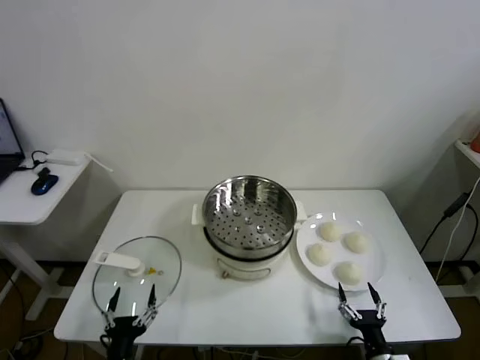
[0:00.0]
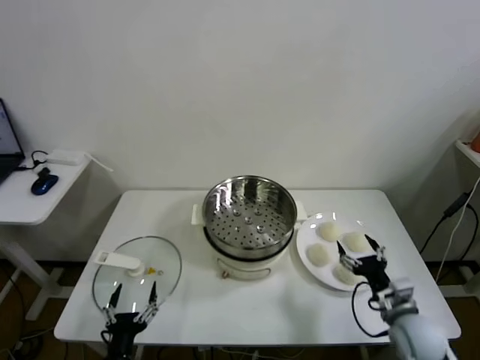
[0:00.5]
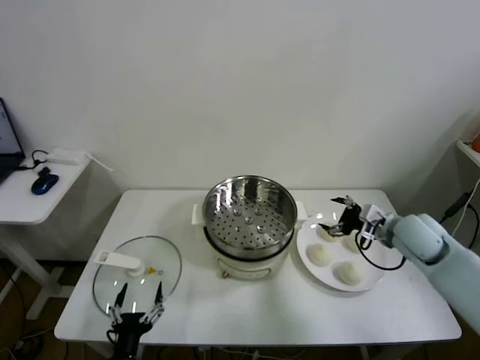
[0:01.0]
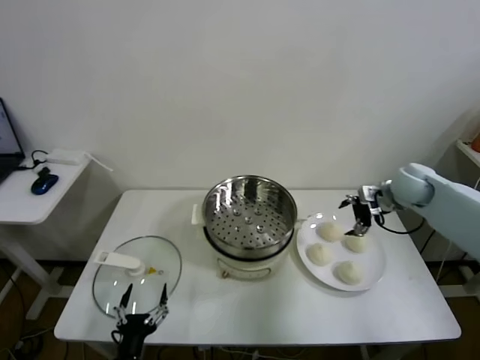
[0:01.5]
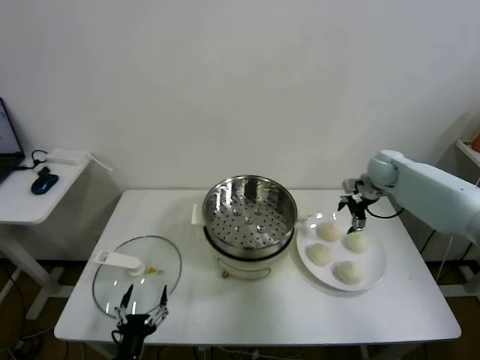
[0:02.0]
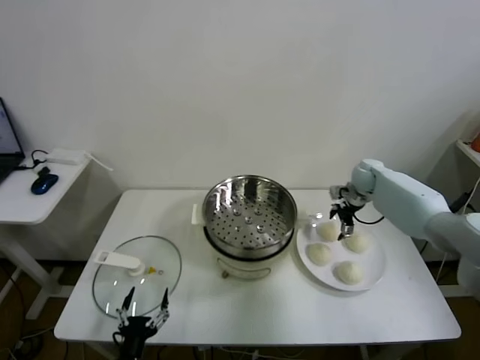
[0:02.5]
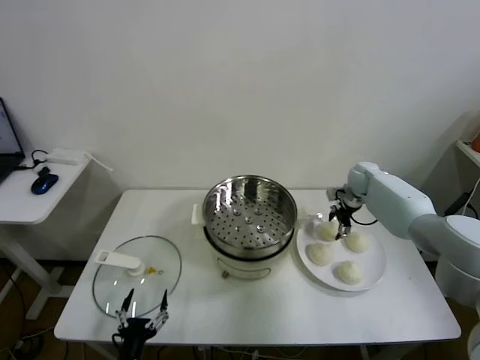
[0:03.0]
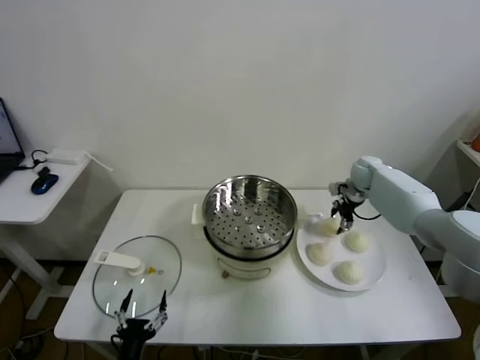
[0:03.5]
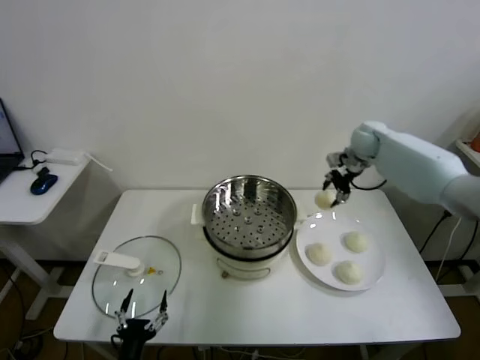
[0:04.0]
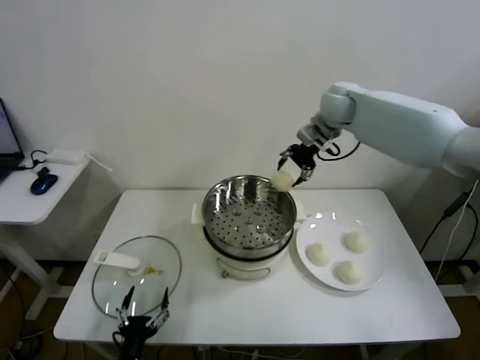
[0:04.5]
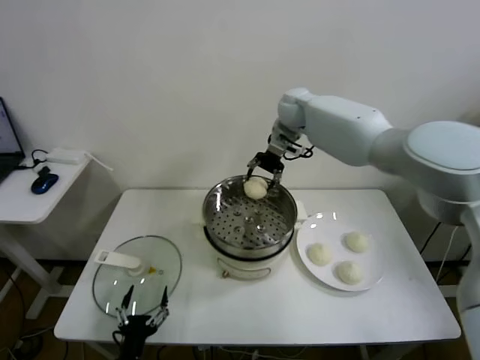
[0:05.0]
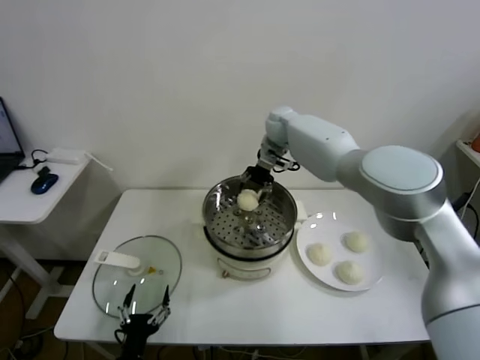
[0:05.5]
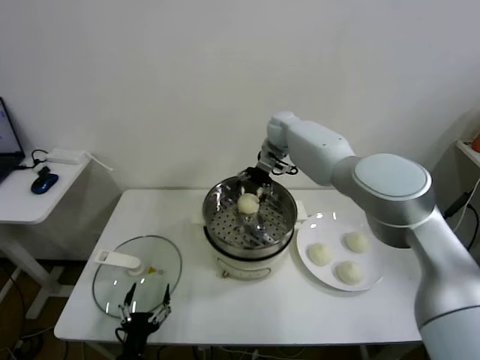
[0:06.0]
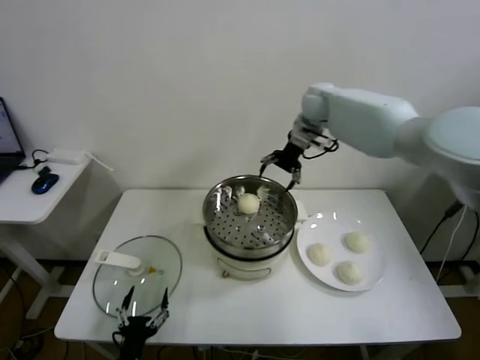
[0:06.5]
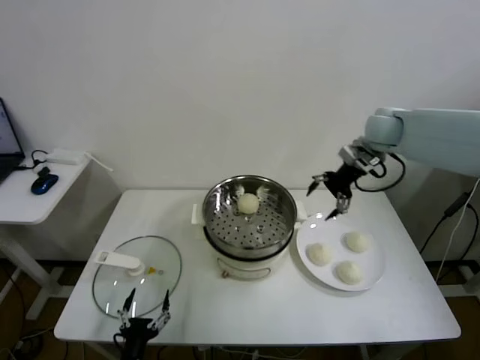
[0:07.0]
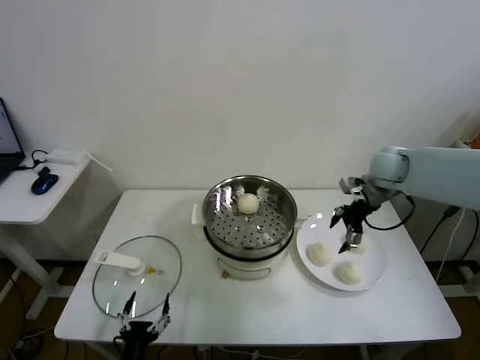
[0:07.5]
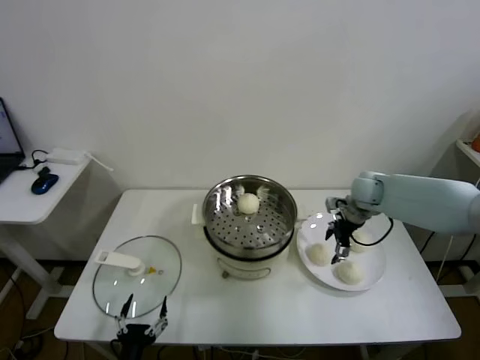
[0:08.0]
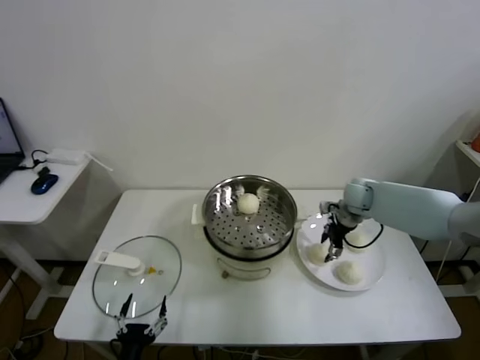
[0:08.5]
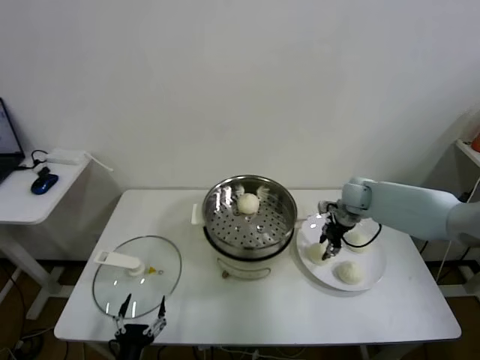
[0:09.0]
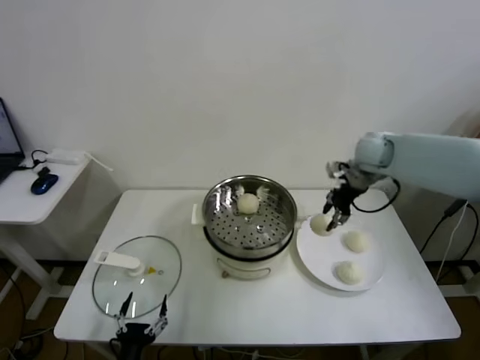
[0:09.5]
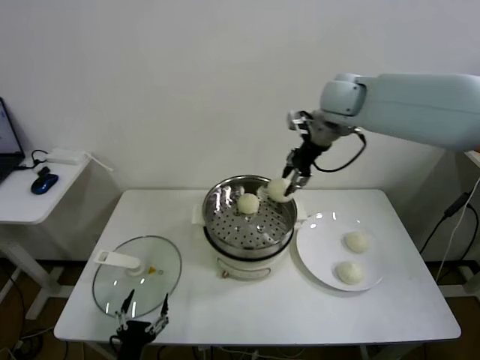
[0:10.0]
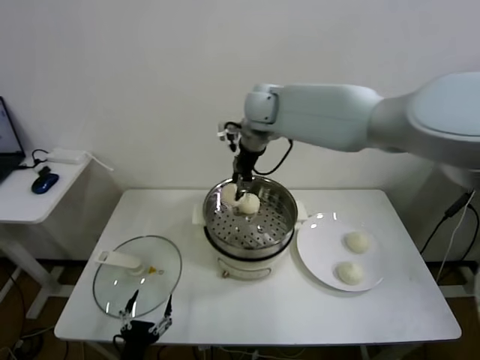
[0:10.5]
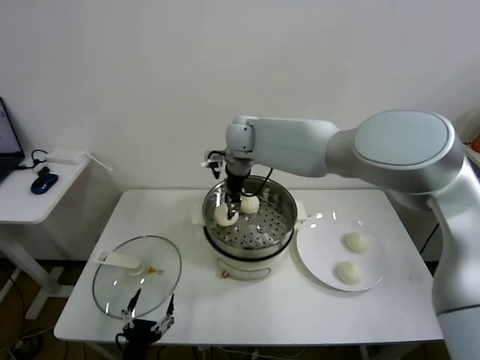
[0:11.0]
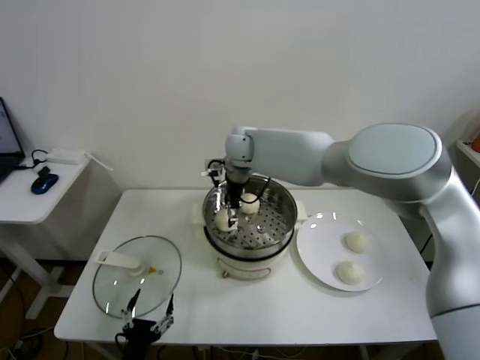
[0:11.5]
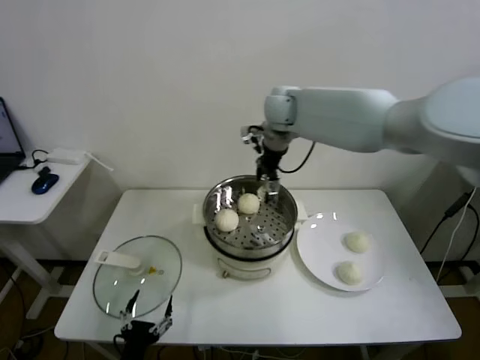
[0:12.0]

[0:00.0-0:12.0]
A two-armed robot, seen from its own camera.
Task of the whole recording: take steamed baozi put them in steamer.
Step, 0:00.0 to 0:03.0: Grasp the baozi in the plate with right gripper.
Step, 0:03.5 to 0:06.0: Place the baozi on the steamer with right gripper.
Step, 0:06.5 to 0:08.5: Grasp the baozi in the plate with right gripper.
Step, 0:09.0 to 0:11.5: Place the baozi on the steamer with right gripper.
0:02.0 to 0:04.0: The right gripper moves upward and to the left, roughly 10 cm, and closes its fingers.
0:04.0 to 0:06.0: The right gripper goes roughly 20 cm to the left, and opens up.
0:06.0 to 0:08.0: The right gripper goes about 25 cm to the right, backward and downward.
0:08.0 to 0:10.0: The right gripper travels upward and to the left by some 30 cm, and closes its fingers.
0:10.0 to 0:12.0: The right gripper goes about 10 cm to the left, and opens its fingers.

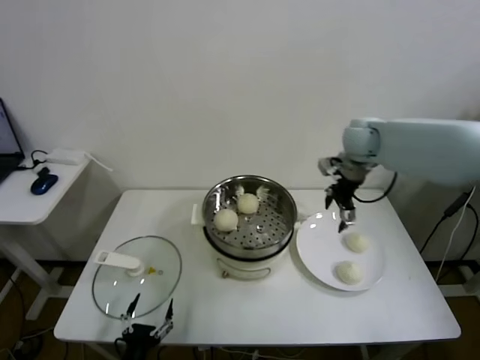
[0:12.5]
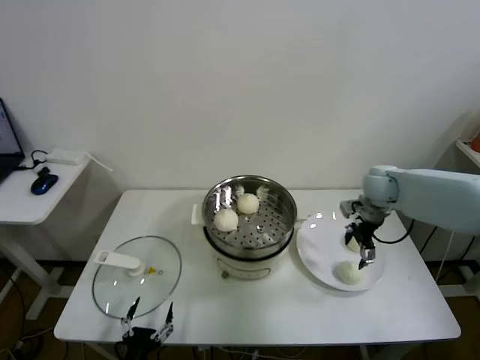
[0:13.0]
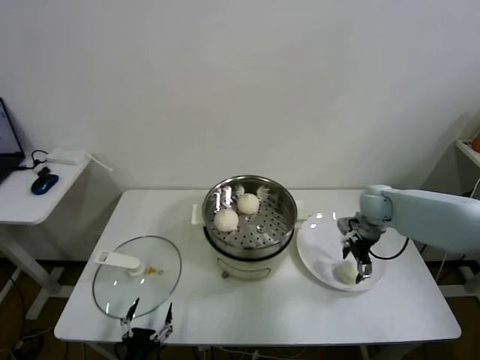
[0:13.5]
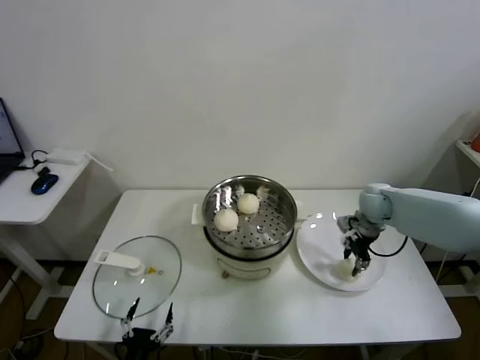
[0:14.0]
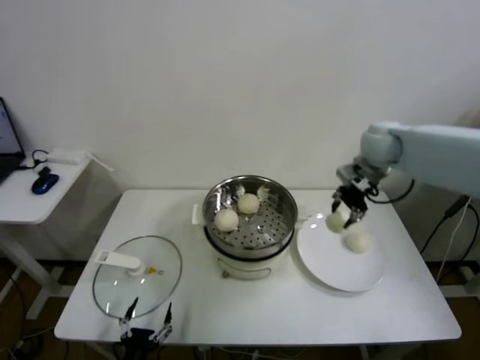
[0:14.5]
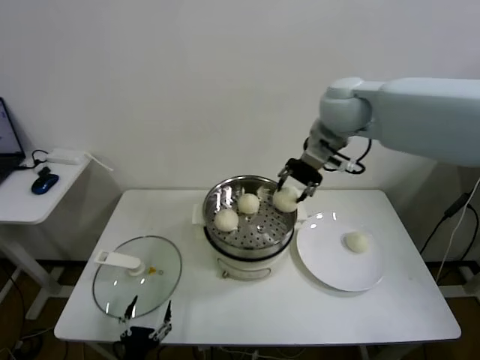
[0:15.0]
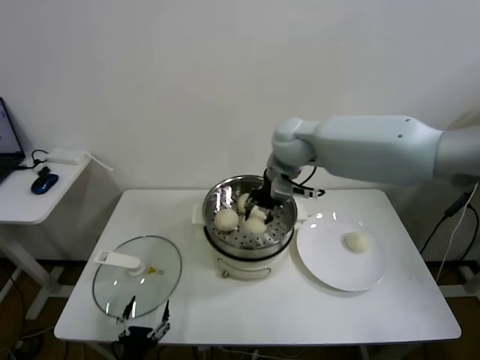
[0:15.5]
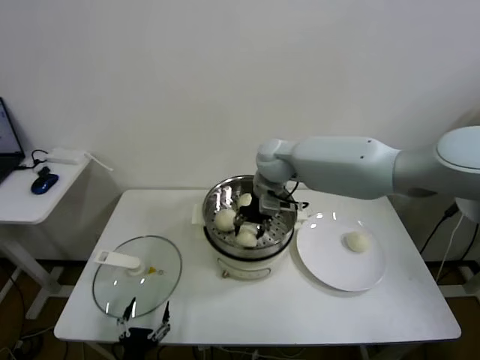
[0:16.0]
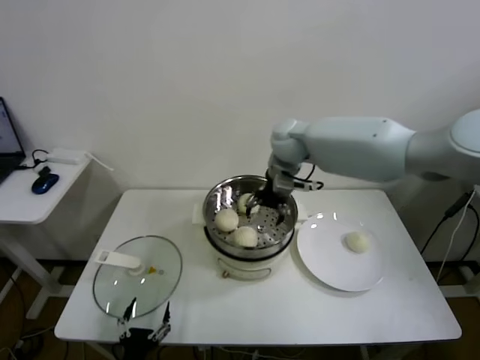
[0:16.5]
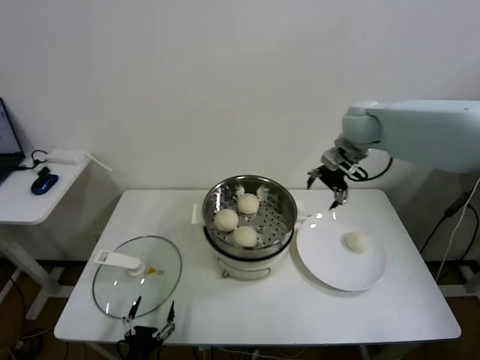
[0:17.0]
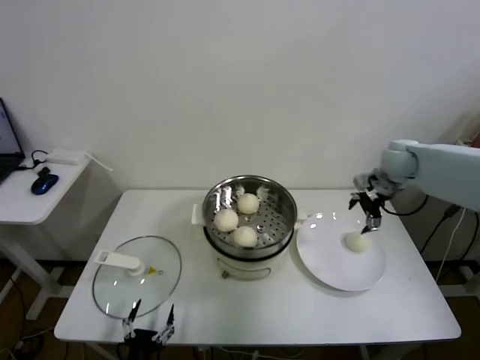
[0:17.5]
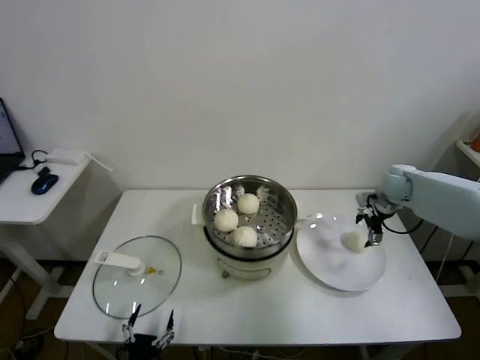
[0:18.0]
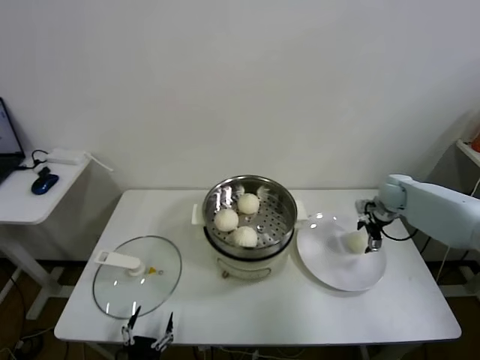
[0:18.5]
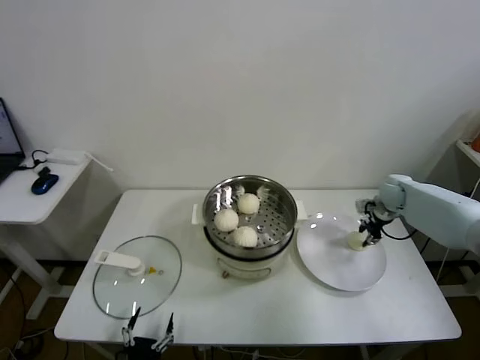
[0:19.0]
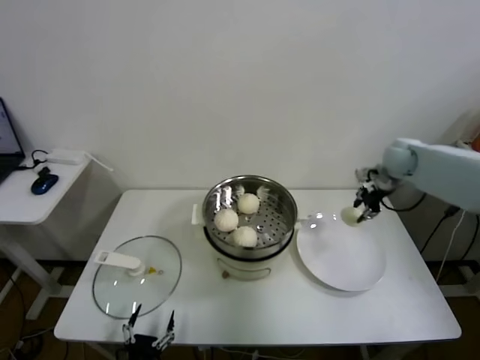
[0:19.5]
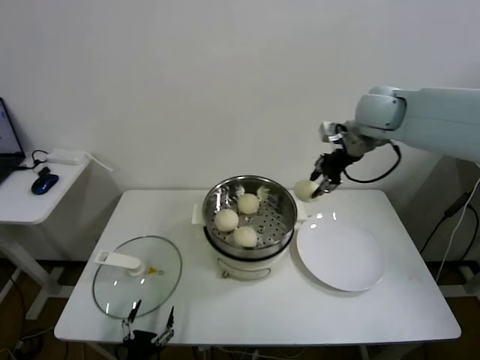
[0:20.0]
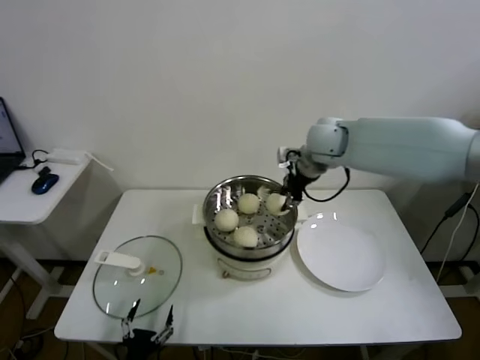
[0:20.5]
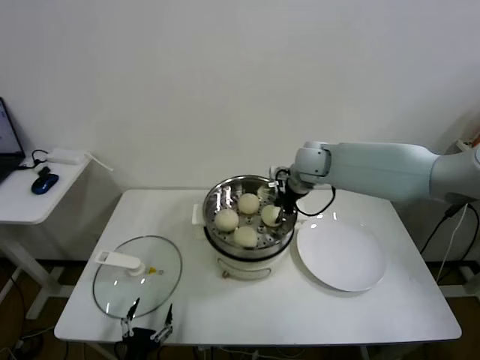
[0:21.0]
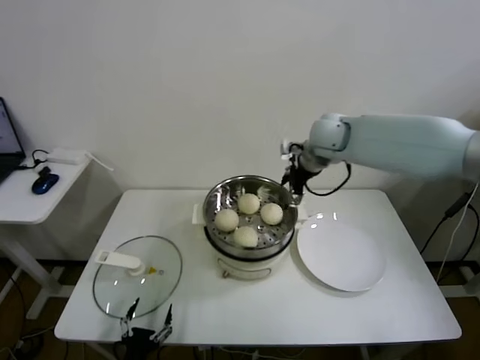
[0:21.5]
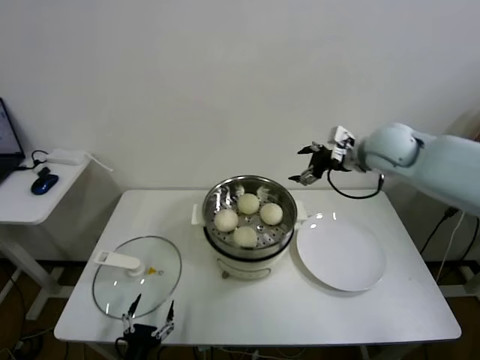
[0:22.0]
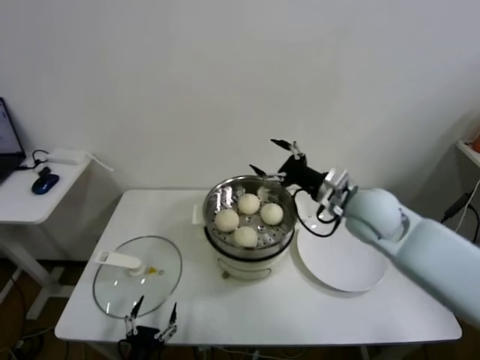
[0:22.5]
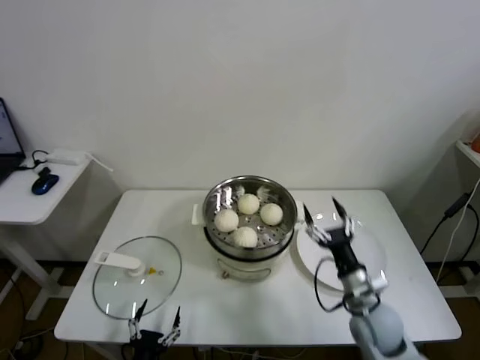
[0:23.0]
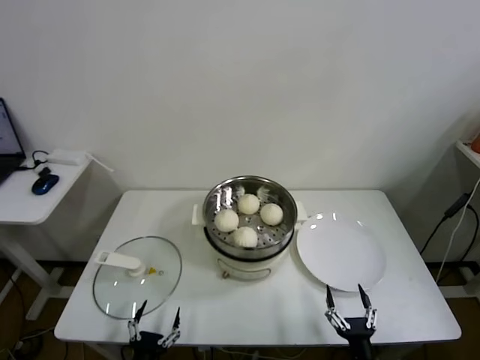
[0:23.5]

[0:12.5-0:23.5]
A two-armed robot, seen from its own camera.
Task of the whole recording: take steamed baozi put them in steamer.
Step, 0:12.5 to 0:14.0: Grasp the baozi in the plate with right gripper.
Step, 0:14.5 to 0:16.0: Place the baozi on the steamer with right gripper.
Step, 0:16.5 to 0:19.0: Grasp the baozi in the plate with right gripper.
Step, 0:19.5 to 0:21.0: Place the baozi on the steamer with right gripper.
0:12.5 to 0:14.5: The right gripper travels downward and back again, roughly 15 cm each way, and closes up.
0:14.5 to 0:16.0: The right gripper heads to the left, covering about 25 cm.
0:16.0 to 0:18.0: The right gripper goes approximately 35 cm to the right, and opens its fingers.
0:18.0 to 0:20.0: The right gripper goes roughly 25 cm upward and to the left, and closes its fingers.
0:20.0 to 0:21.5: The right gripper heads to the left and downward, covering about 10 cm, and opens its fingers.
0:21.5 to 0:23.5: The right gripper goes approximately 60 cm backward and downward.

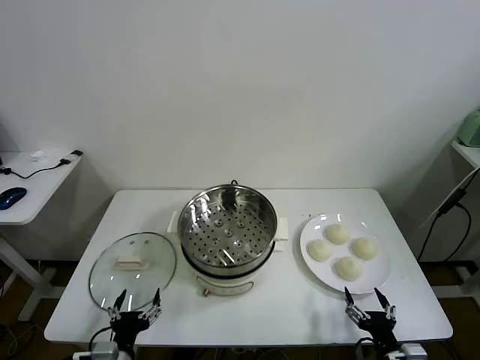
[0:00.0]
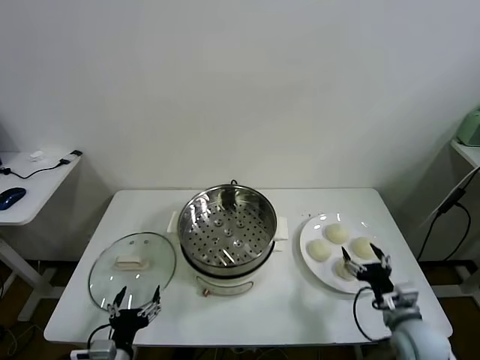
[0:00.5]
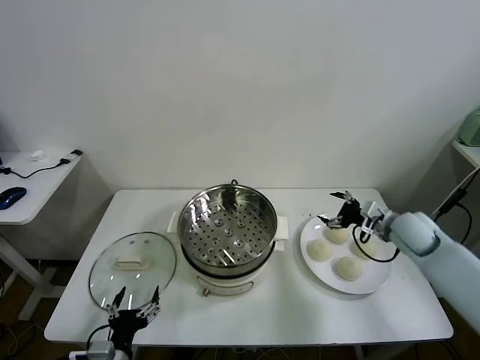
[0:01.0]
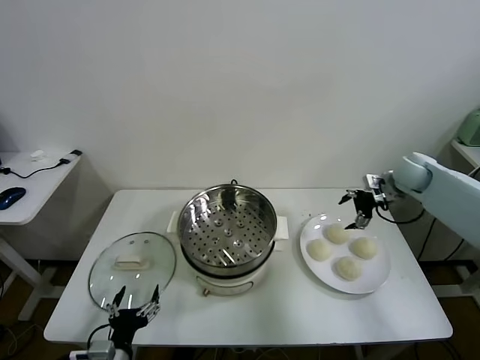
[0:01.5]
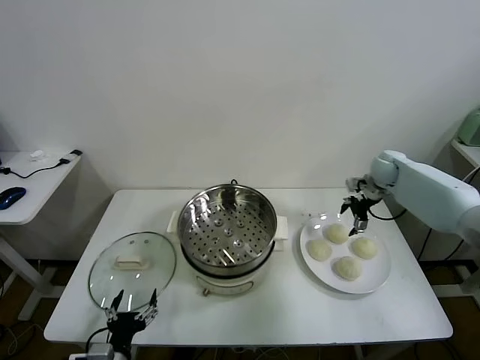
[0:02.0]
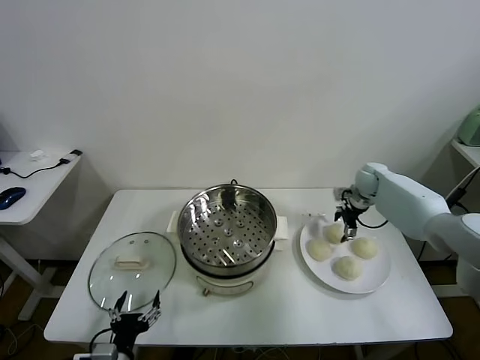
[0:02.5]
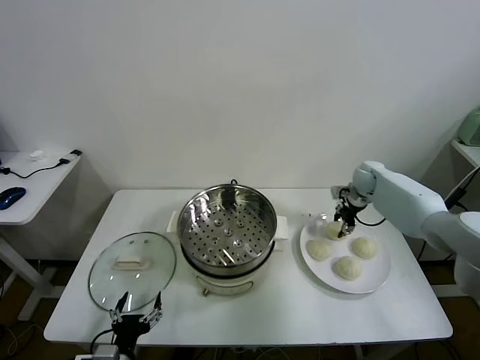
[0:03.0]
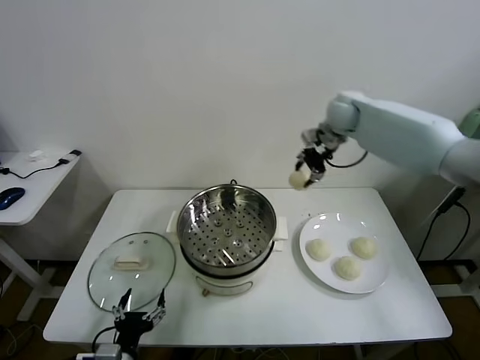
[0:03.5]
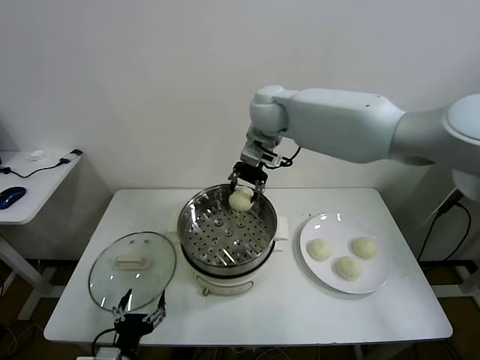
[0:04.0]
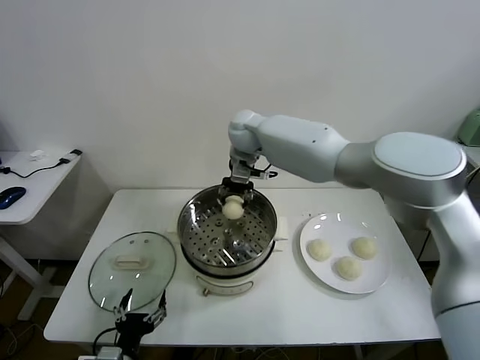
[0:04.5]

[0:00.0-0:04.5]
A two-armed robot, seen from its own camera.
Task of the whole recording: take steamed baozi put them in steamer.
Step, 0:00.0 to 0:02.5: Grasp the baozi in the plate with right gripper.
0:02.0 to 0:04.5: The right gripper heads to the left, covering approximately 40 cm, and closes.
